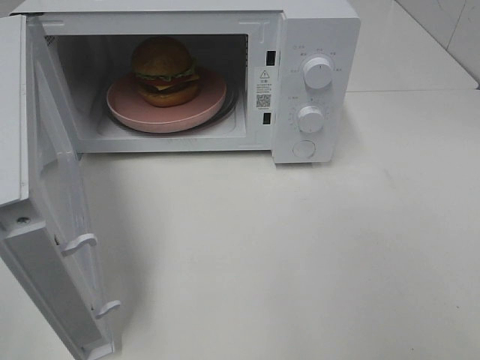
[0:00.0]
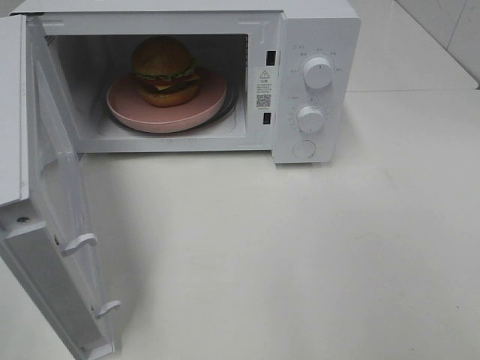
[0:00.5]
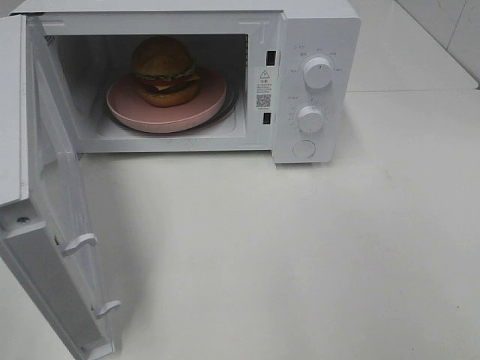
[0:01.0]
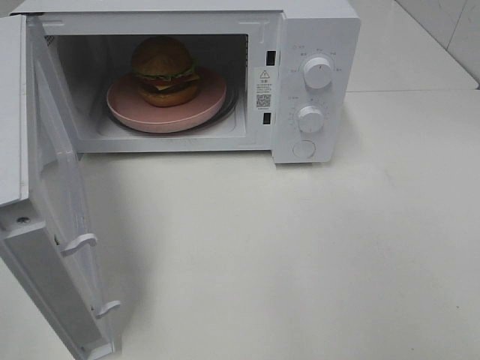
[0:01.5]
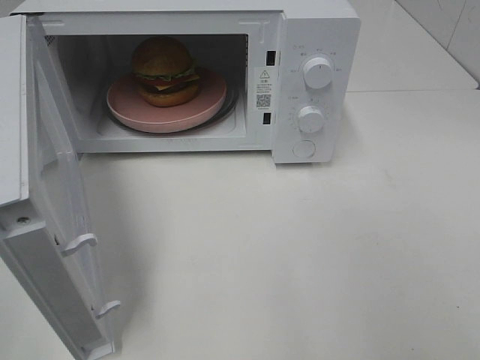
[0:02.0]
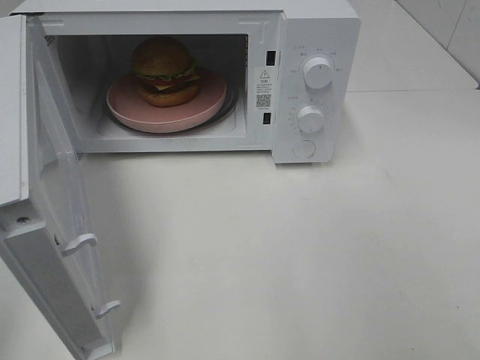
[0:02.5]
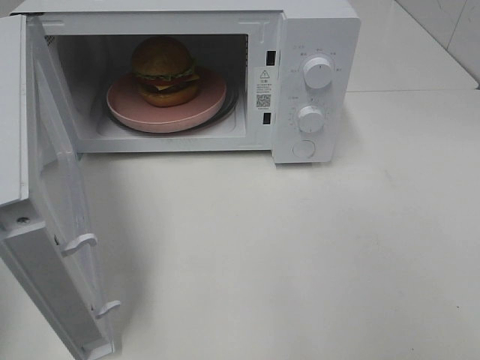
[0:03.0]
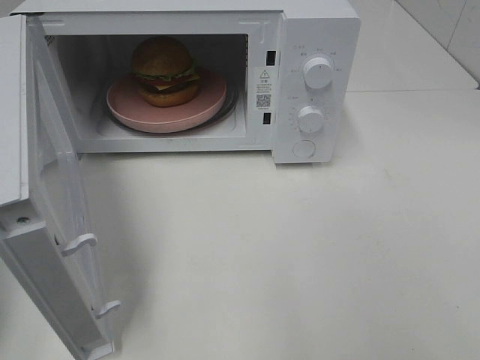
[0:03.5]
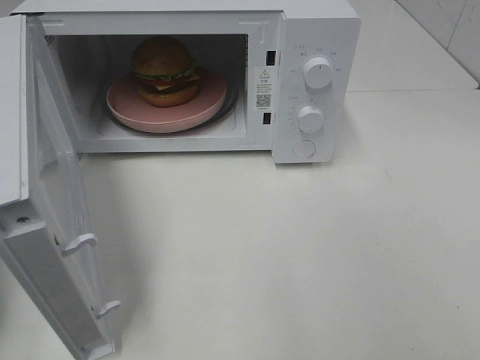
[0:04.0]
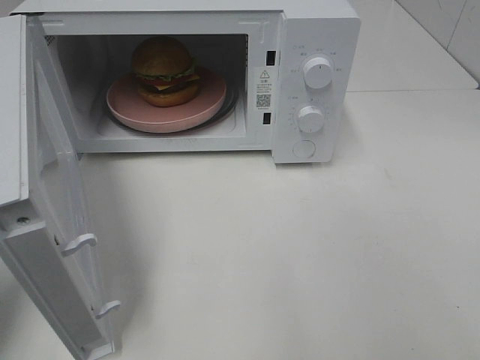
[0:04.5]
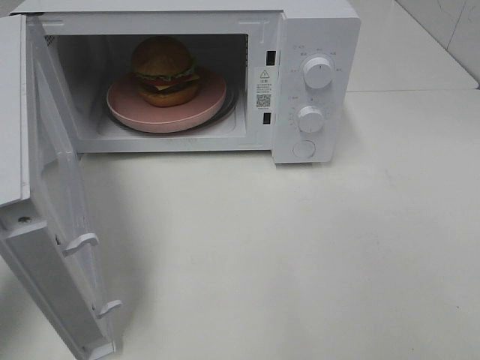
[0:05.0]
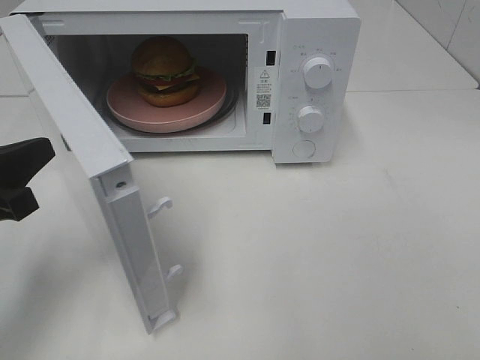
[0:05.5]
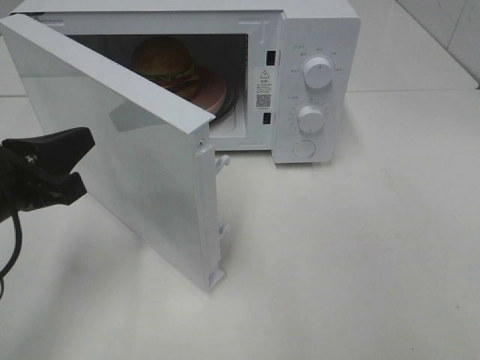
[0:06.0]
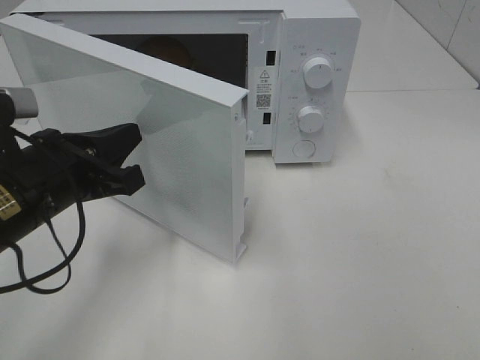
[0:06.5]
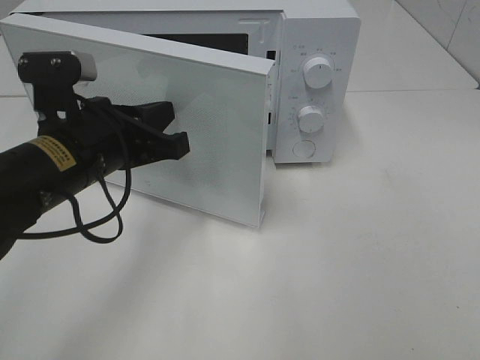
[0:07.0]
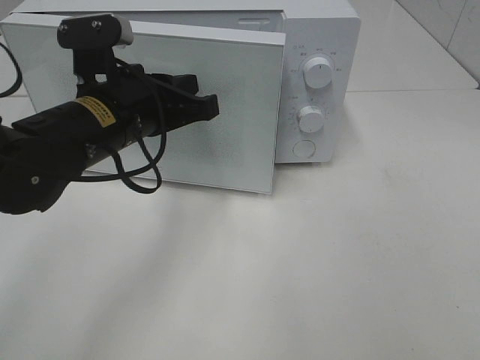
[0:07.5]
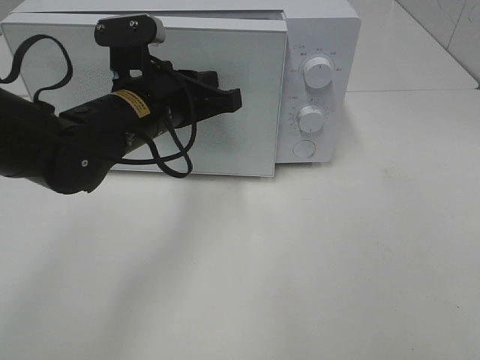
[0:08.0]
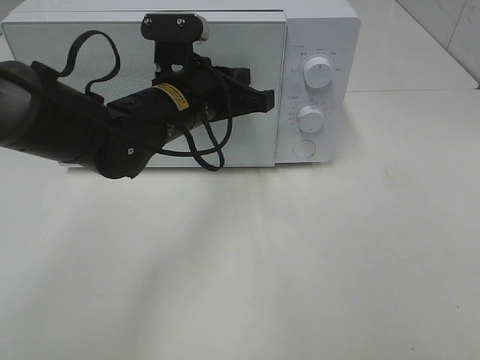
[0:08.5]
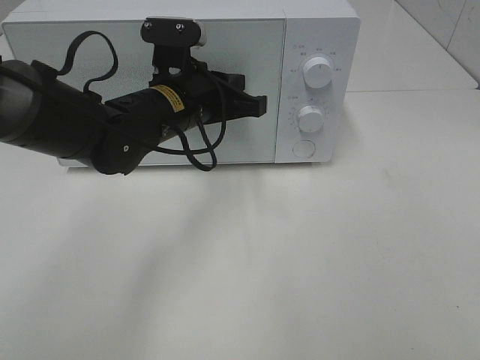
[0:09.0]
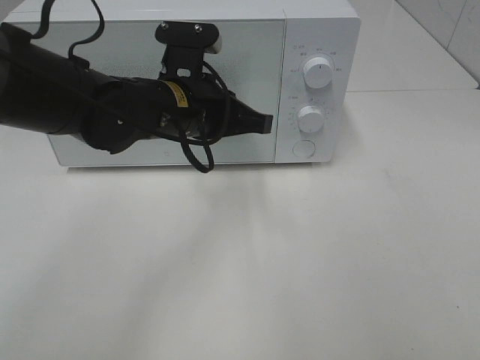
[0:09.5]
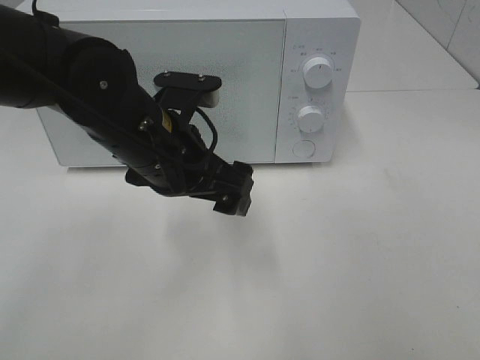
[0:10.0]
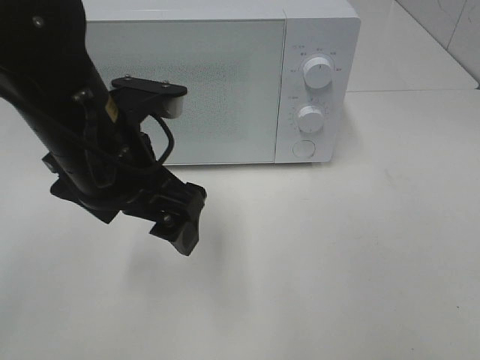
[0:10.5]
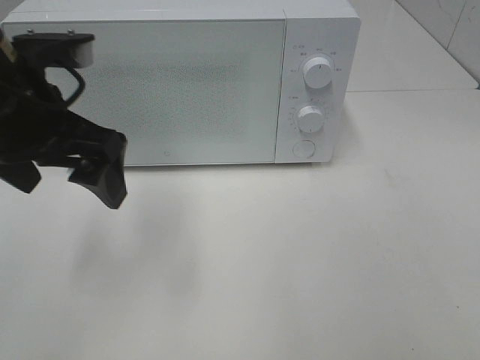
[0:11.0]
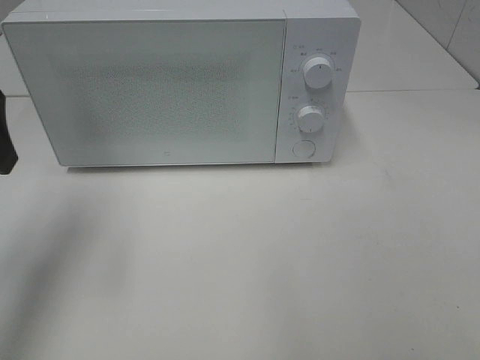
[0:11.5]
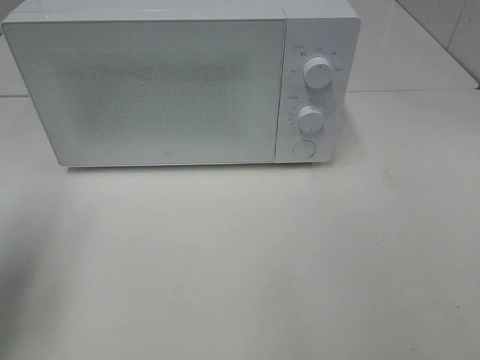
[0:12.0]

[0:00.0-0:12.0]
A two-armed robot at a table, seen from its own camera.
Task of the whole recording: Heat the burger.
Step, 0:00.0 to 0:09.0: Left hand: close the microwave door.
0:00.0 to 0:02.0: Both grippers stay about where they are.
0:04.0 to 0:06.0: The left gripper moves to the right and forward, some 10 cm.
0:06.0 to 0:08.0: The left gripper moves to the right and forward, some 15 cm.
0:08.0 to 0:10.0: The left gripper changes place by some 5 cm, and opens up.
0:10.0 to 0:12.0: The left gripper is displaced to the left by approximately 25 cm.

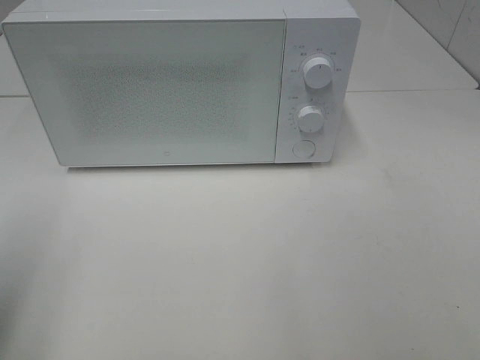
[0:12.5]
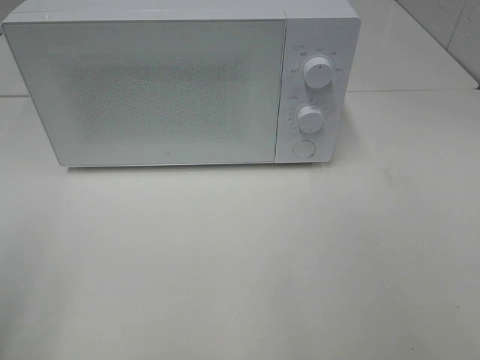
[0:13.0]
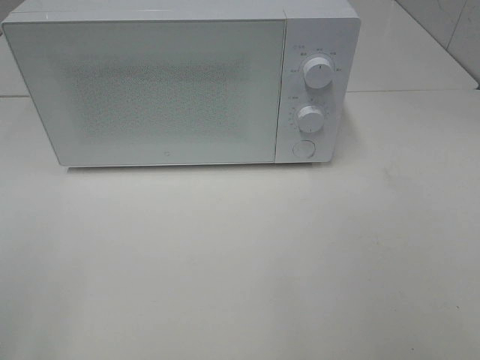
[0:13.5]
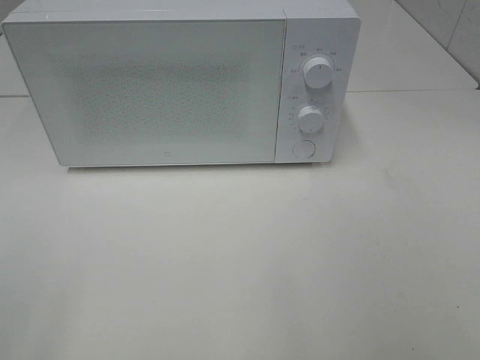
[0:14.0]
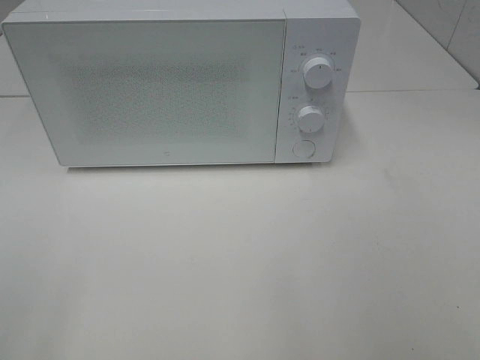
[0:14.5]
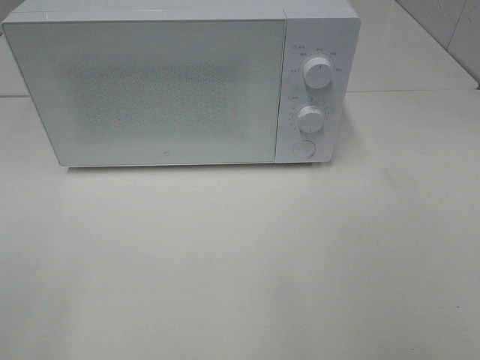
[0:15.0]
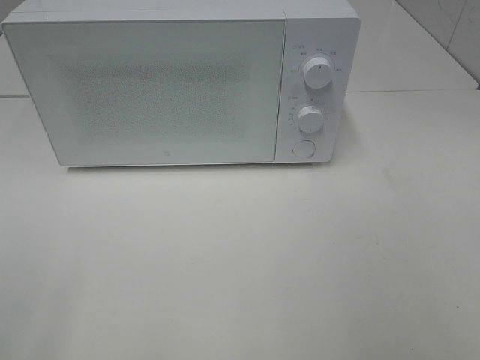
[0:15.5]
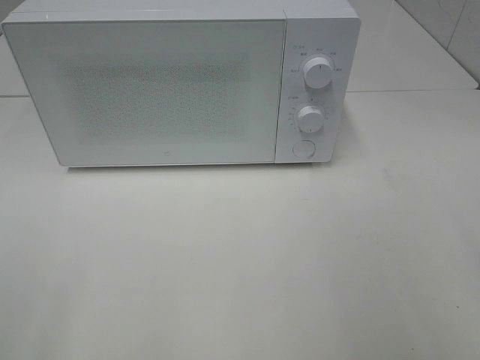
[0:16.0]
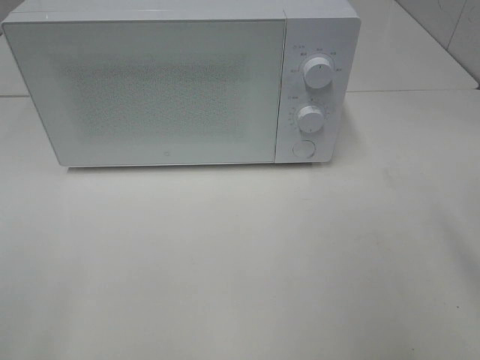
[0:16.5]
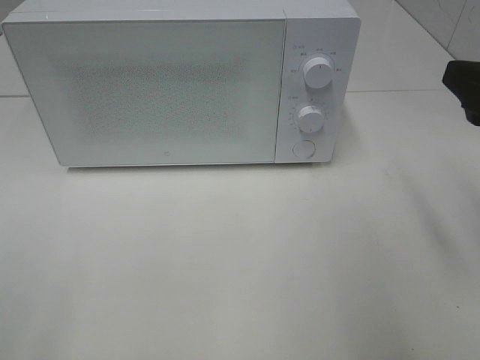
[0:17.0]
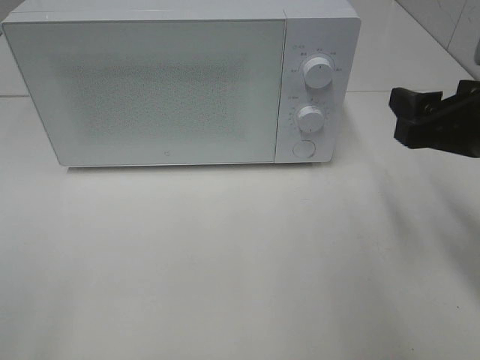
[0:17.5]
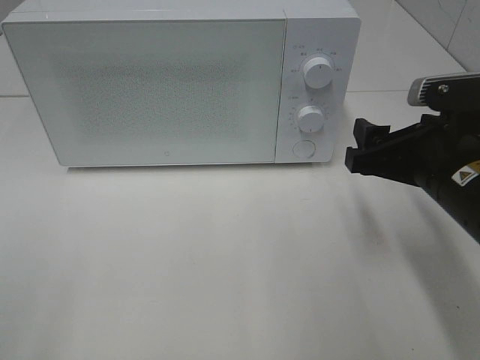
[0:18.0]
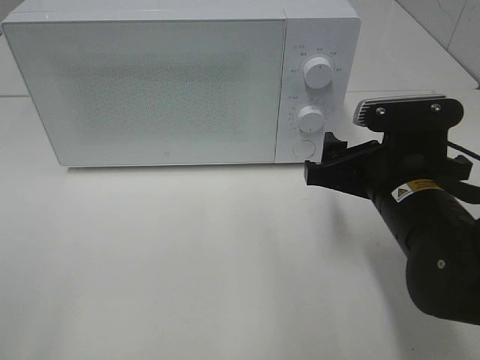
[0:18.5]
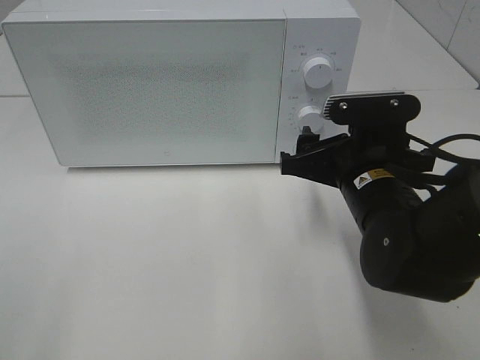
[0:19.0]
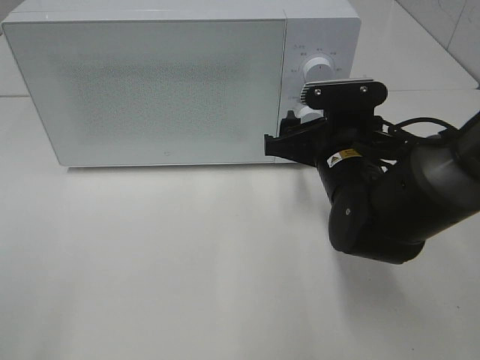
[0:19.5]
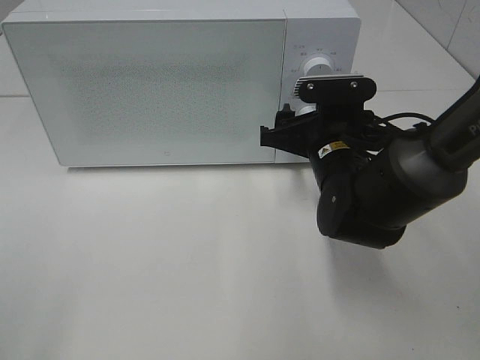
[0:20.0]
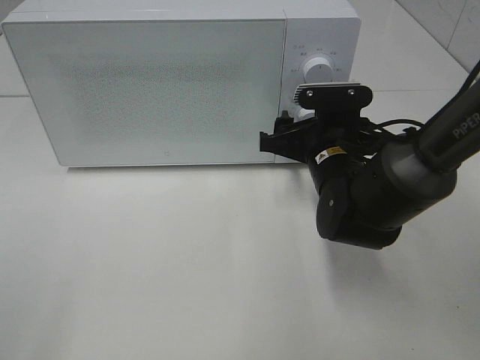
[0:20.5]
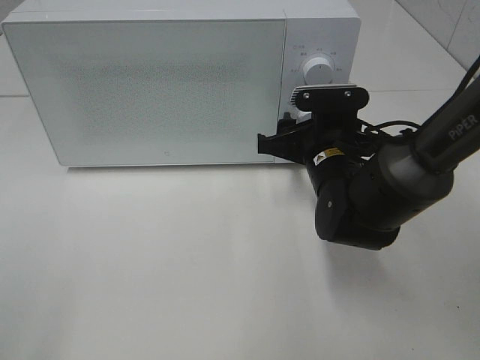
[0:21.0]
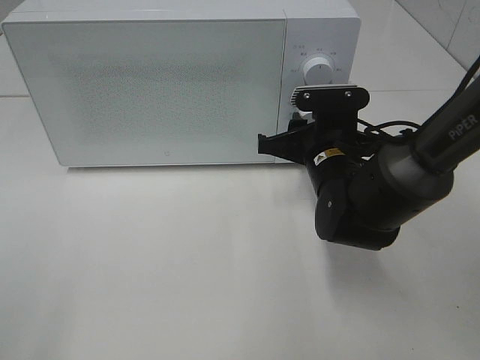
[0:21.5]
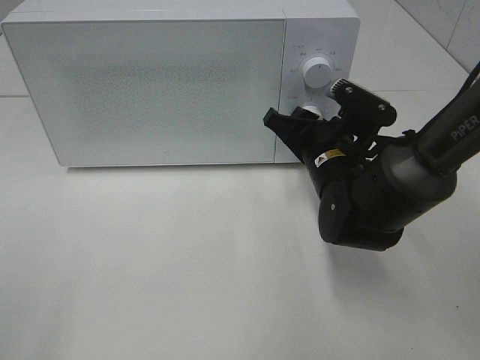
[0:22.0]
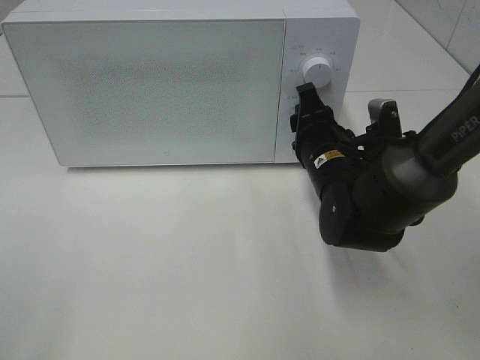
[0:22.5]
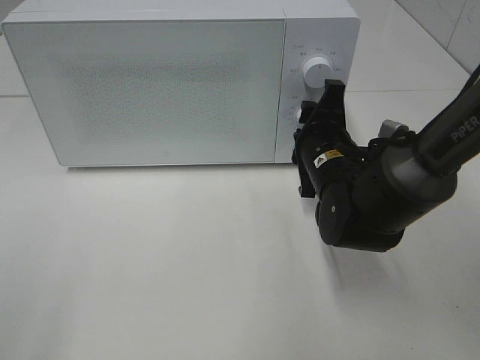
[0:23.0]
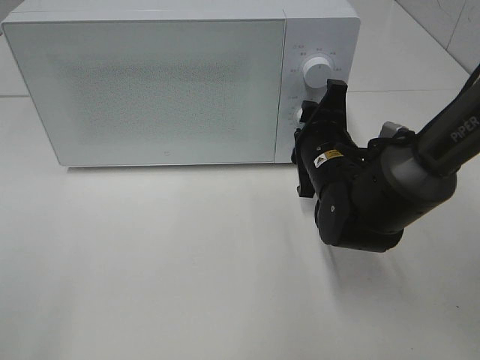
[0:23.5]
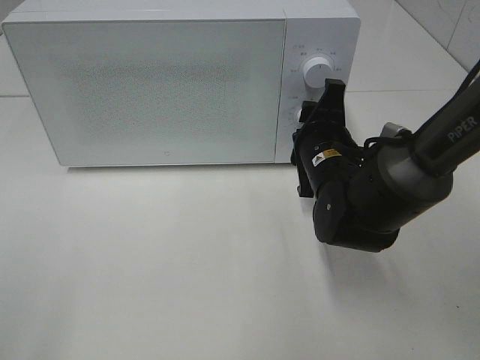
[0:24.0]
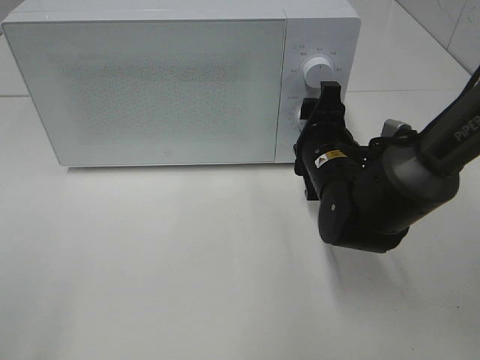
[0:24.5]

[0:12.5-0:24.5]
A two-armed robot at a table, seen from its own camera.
Task of the whole recording: Heat the burger.
Step, 0:12.5 to 0:24.5: Right hand: twist timer button.
0:12.5 to 0:14.5: The left gripper moves backward, approximately 15 cm.
0:16.5 to 0:18.5: The right gripper shifts some 20 cm downward, to the left and forward.
0:18.5 to 0:20.5: The right gripper shifts roughly 10 cm forward.
0:20.5 to 0:22.5: The right gripper closes its fingers.

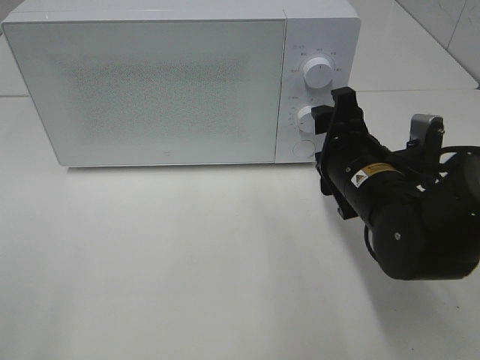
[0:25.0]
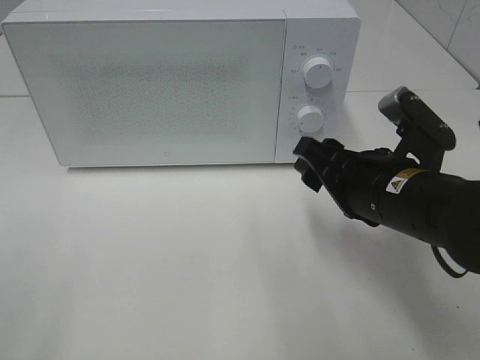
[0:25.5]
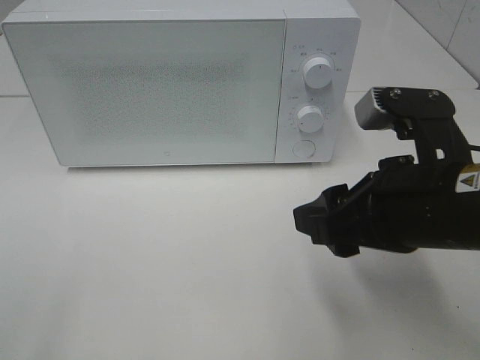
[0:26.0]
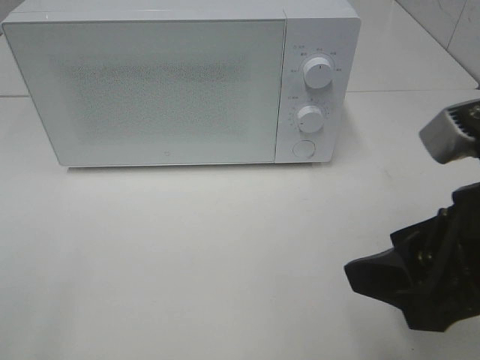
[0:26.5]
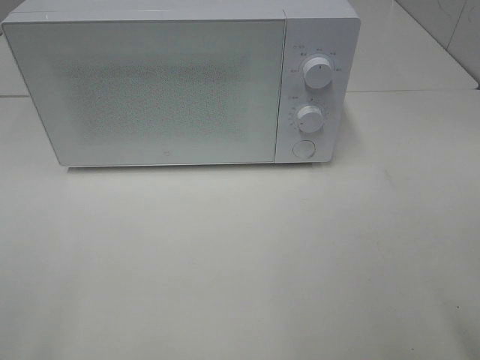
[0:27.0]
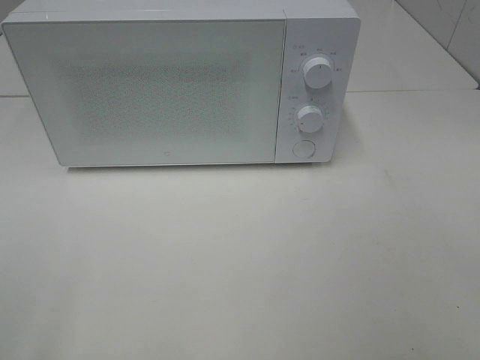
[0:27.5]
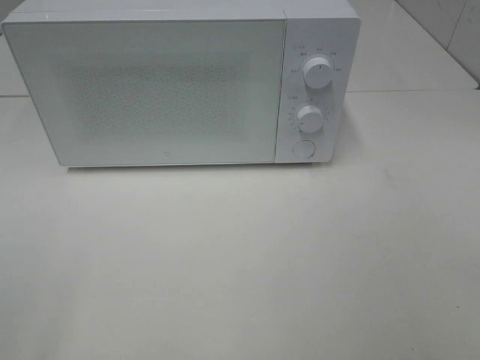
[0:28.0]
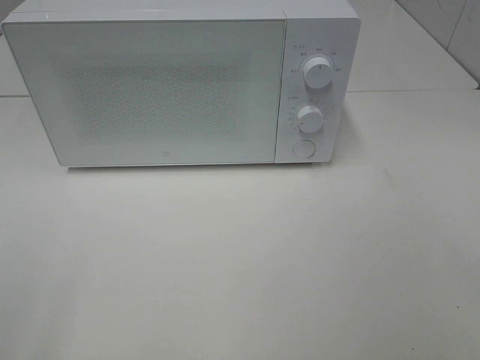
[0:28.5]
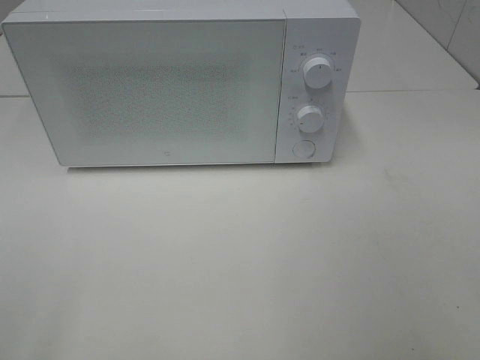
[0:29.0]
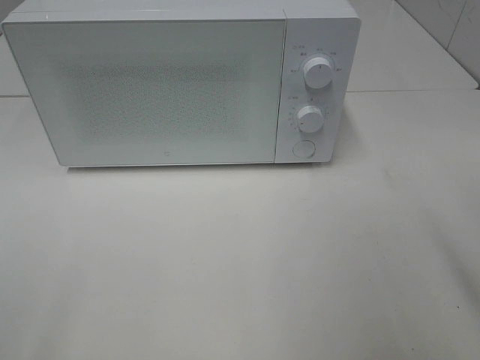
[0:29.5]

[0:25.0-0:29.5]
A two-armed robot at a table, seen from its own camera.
Task of the whole recording: Heat the burger.
0:25.0 to 0:27.0: The right gripper is displaced backward, upward and to the right by approximately 25 cm.
